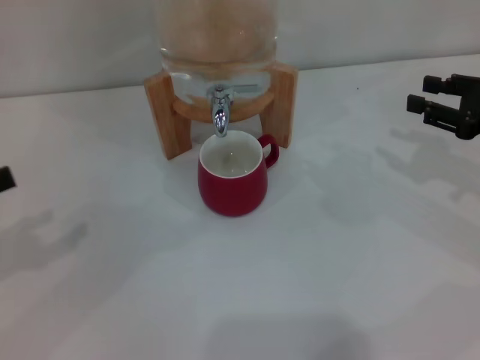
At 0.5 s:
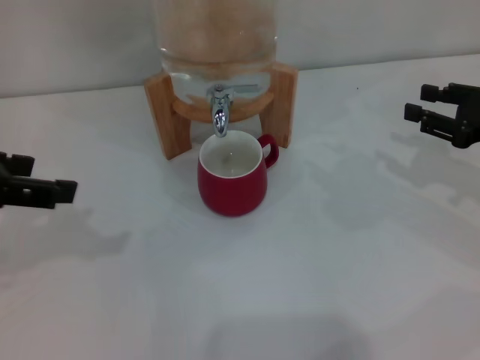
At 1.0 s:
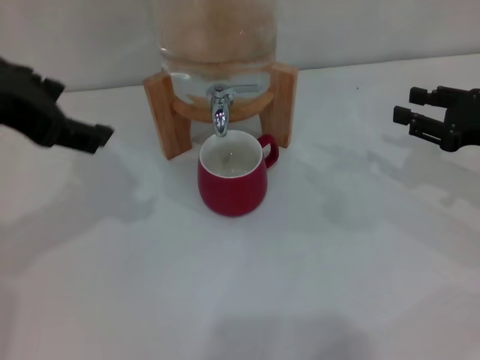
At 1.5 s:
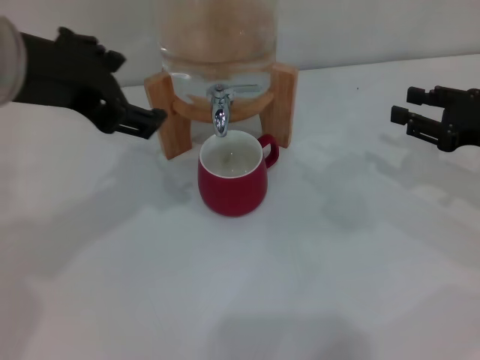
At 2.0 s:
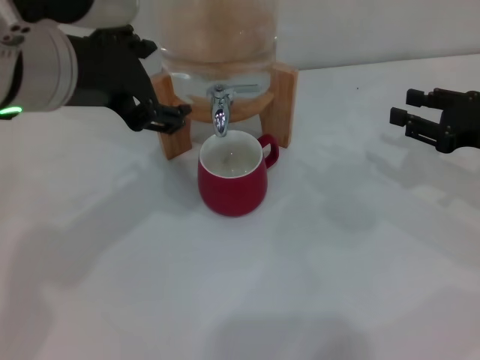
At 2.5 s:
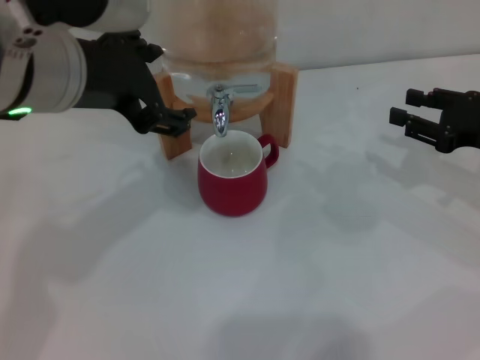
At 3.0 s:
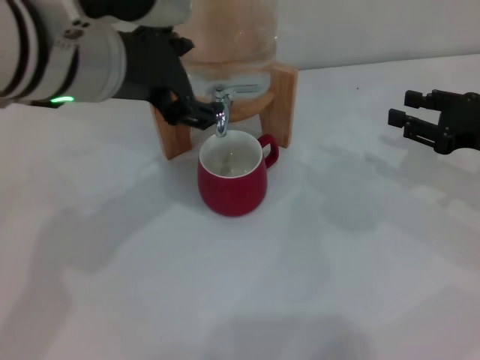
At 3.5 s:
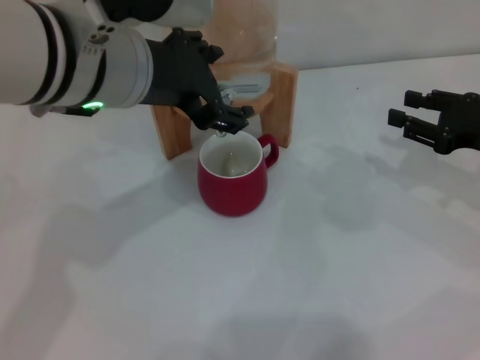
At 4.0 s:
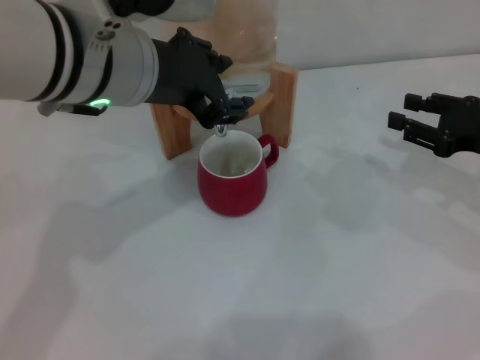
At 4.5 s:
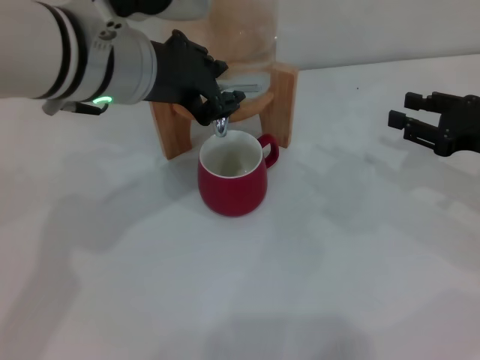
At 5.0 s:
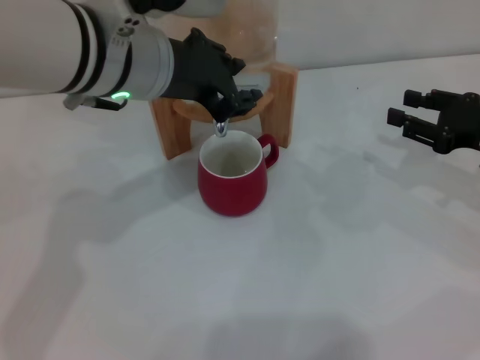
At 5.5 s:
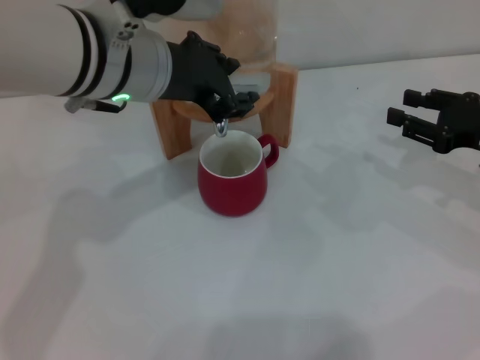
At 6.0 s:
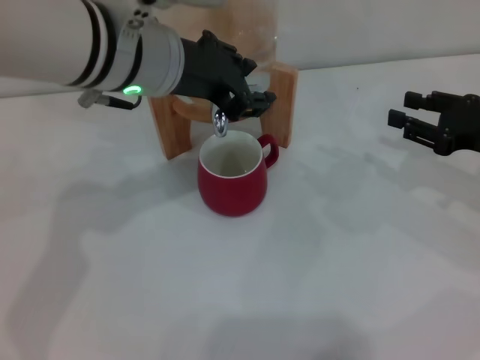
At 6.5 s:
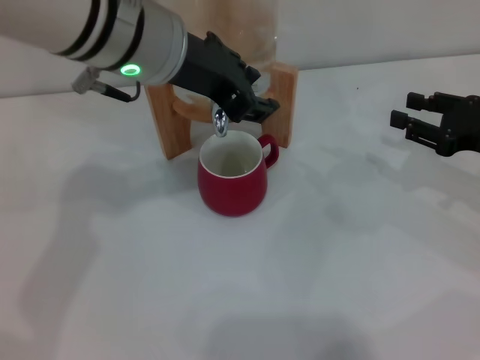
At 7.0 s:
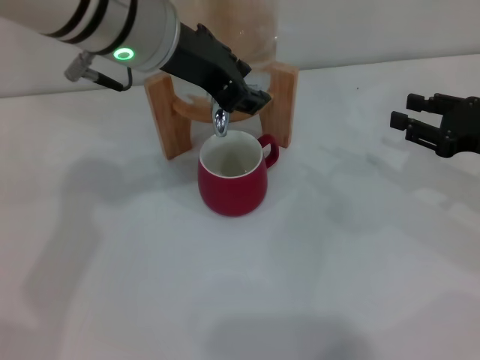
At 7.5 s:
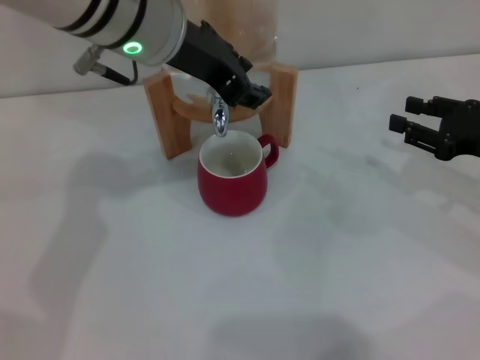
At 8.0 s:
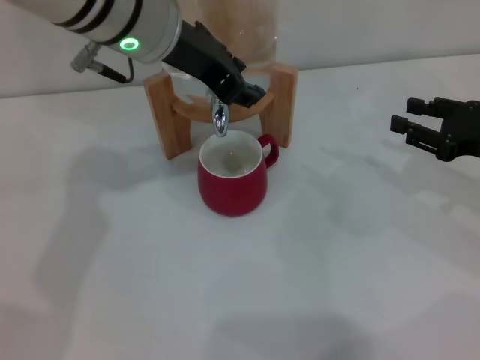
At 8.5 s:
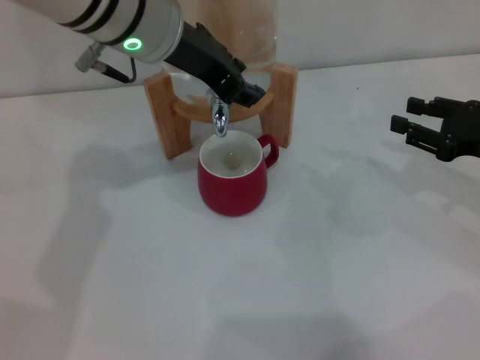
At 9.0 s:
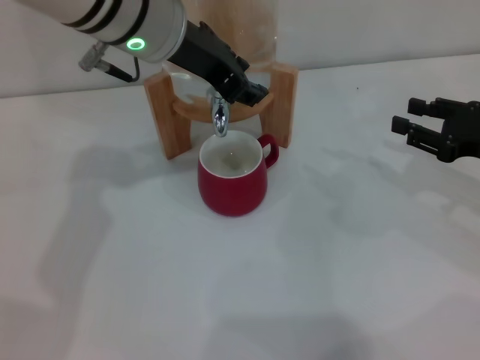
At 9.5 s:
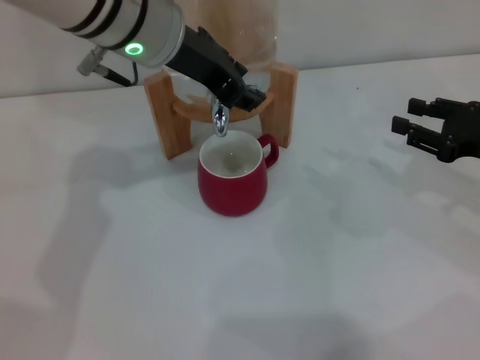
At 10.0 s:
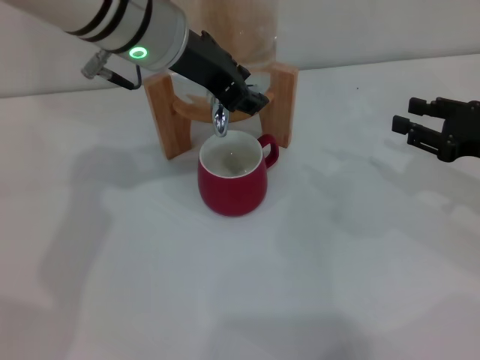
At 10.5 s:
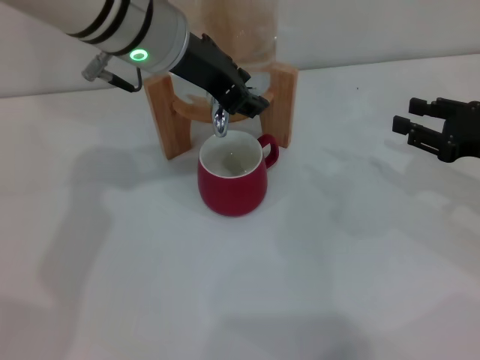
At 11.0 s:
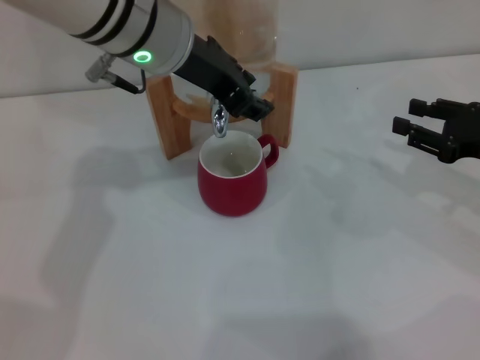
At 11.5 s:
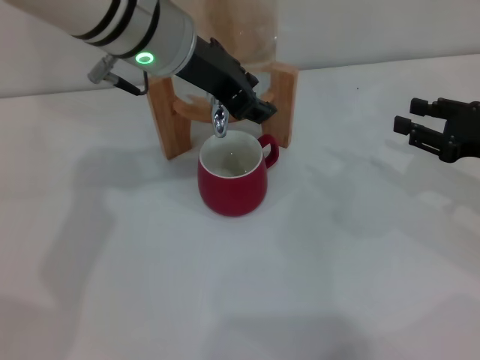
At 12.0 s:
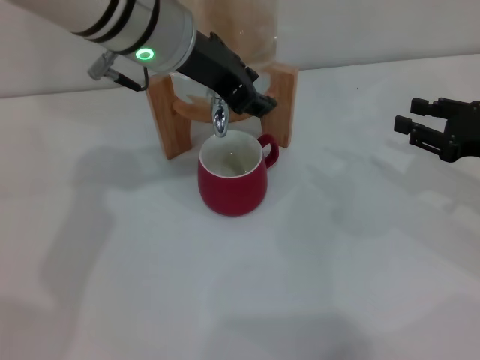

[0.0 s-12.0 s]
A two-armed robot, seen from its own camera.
Task of the whole recording: the right gripper pick up the red cup and place it horizontally under the faucet, the left gripper turn on the faucet to fill the cup, and then turn off the faucet.
0.0 to 2.0 s: The left gripper travels to the right and upward by some 25 cm.
2.0 to 4.0 s: The left gripper moves some 5 cm.
4.0 to 6.0 s: The left gripper closes up.
6.0 to 8.0 s: There are only small adjustments of the grippers.
8.0 to 10.0 s: Neither gripper changes place.
10.0 to 12.0 s: Both grippers stay put.

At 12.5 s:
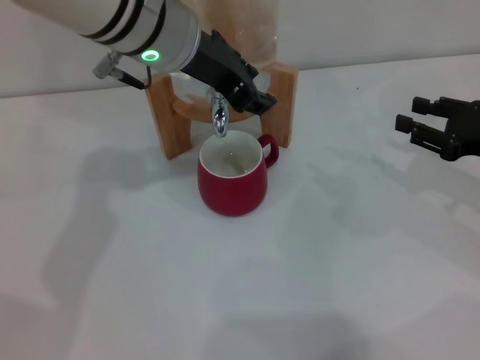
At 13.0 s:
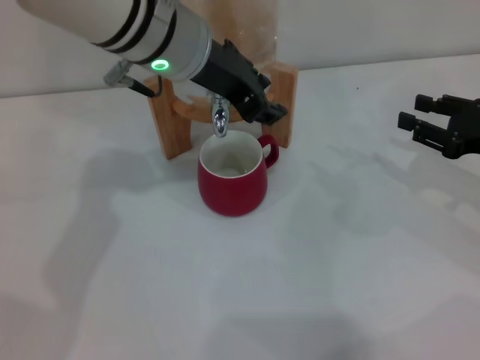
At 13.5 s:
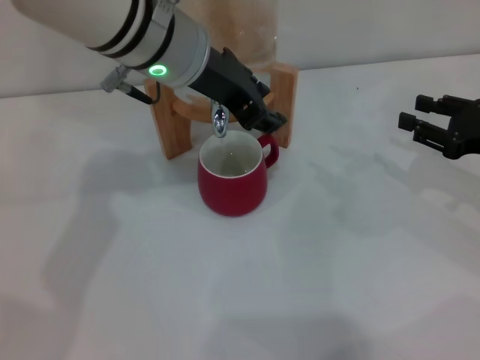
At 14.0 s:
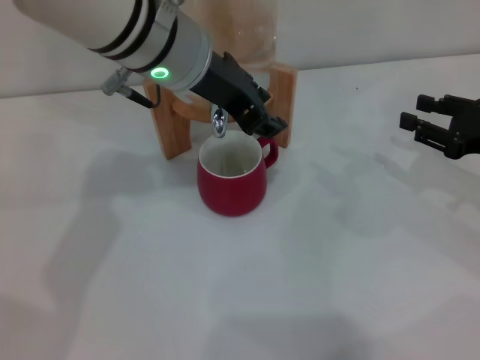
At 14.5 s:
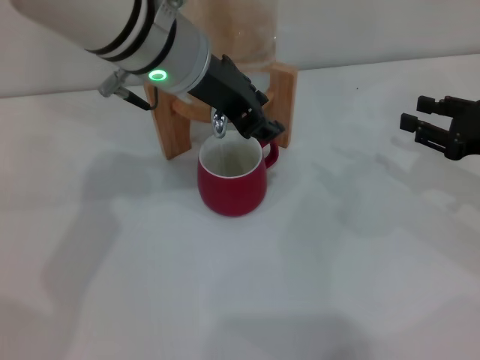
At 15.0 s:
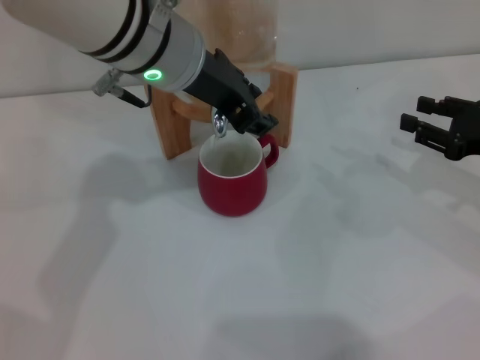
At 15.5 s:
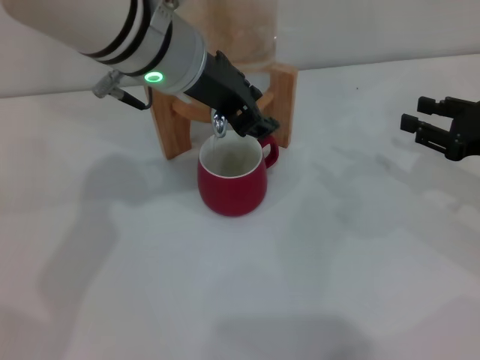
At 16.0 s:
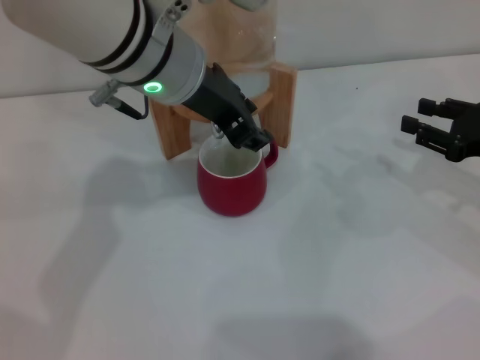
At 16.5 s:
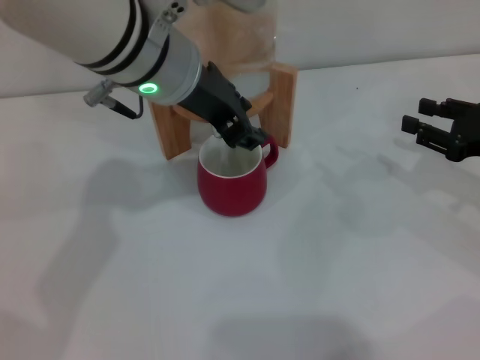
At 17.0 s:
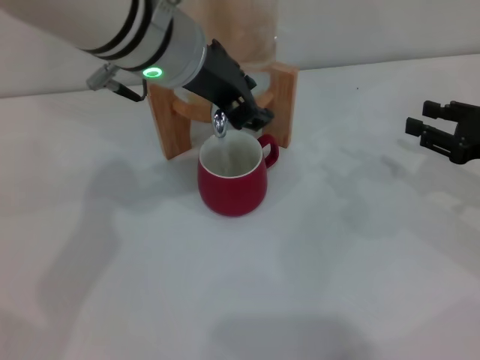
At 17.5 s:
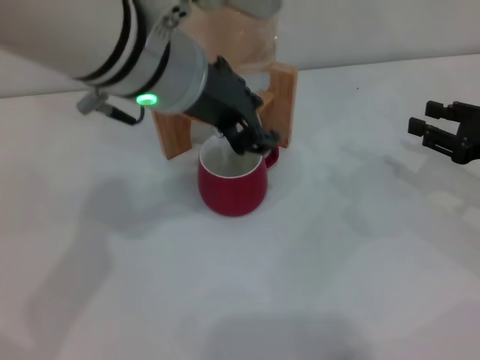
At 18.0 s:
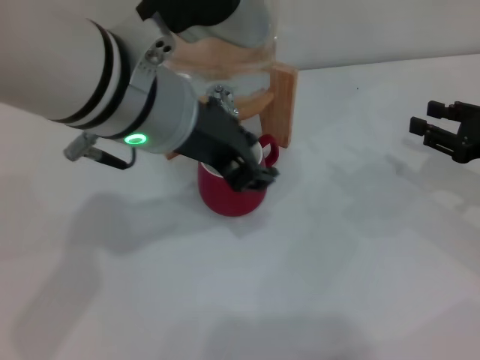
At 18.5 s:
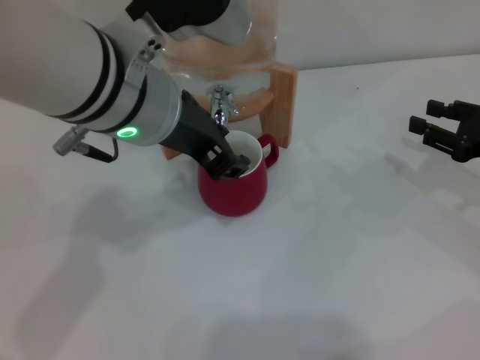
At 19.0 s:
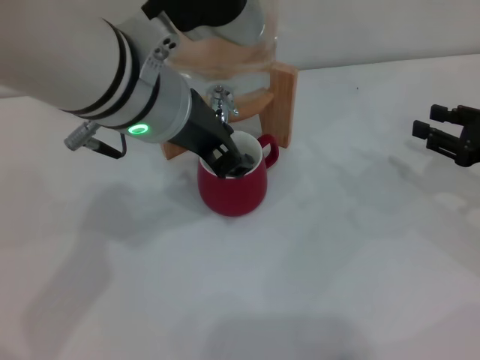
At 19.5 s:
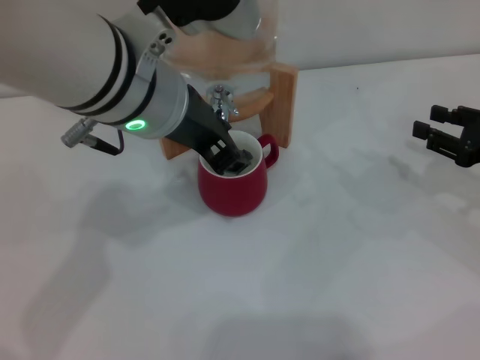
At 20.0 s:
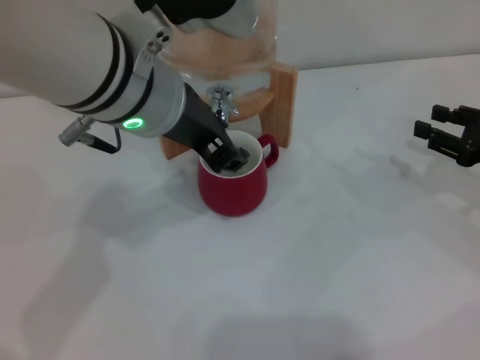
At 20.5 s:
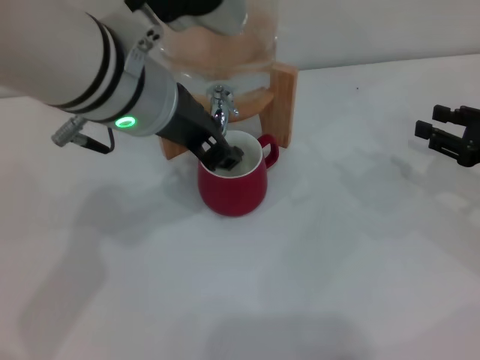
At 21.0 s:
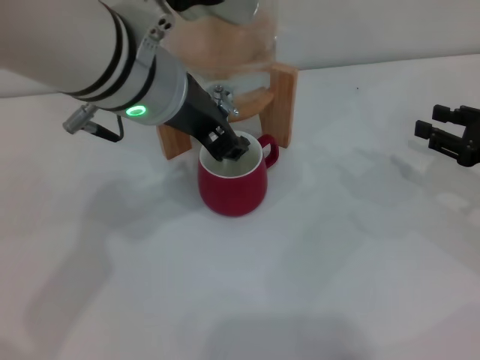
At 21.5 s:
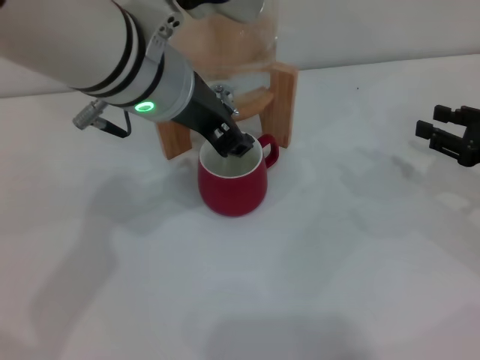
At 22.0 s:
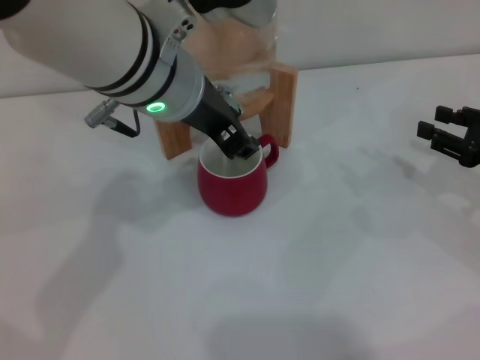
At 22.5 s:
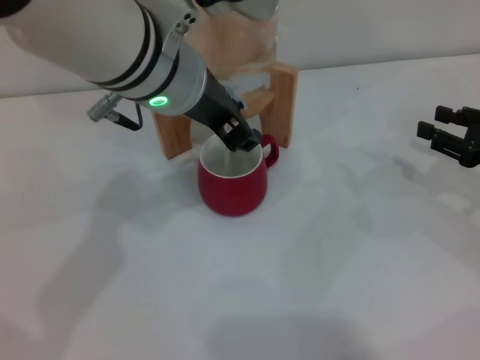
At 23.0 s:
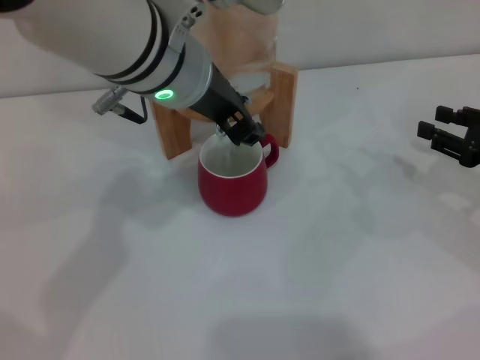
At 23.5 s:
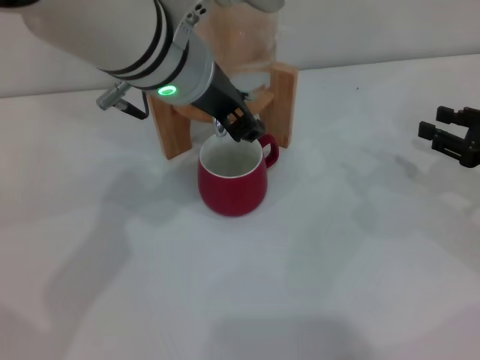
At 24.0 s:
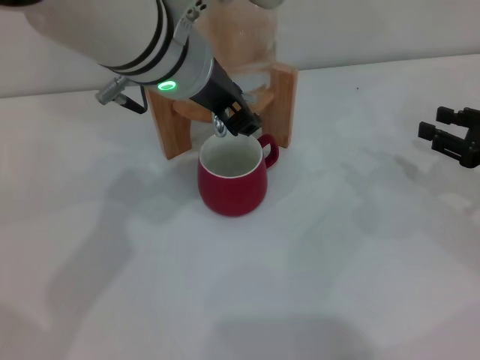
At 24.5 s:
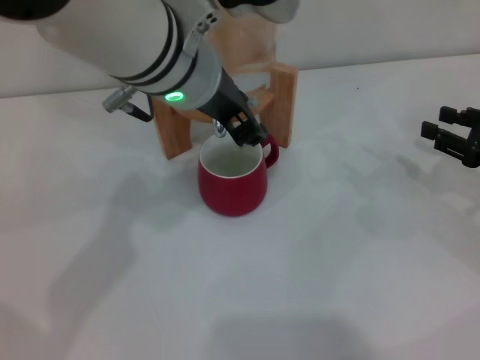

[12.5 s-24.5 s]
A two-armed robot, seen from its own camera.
Task of the whole recording: the right gripper pick up the red cup and place it horizontally under the faucet, the left gripper turn on the faucet to fill the cup, and then turn off the faucet.
Step, 12.5 to 17.0 s: Open the dispenser valve and fill the cup with water with the left gripper.
12.5 to 14.5 s: The grippers make only small movements.
14.5 to 16.5 s: Both grippers stay about where they are.
18.5 to 20.5 s: Both grippers stay about where they are.
20.5 to 22.5 s: The grippers stay close to where they were, moving slightly.
22.5 to 24.5 s: The two grippers keep their place.

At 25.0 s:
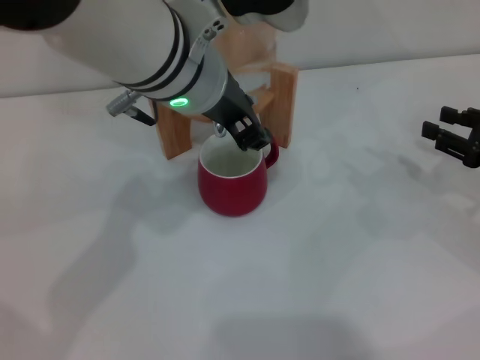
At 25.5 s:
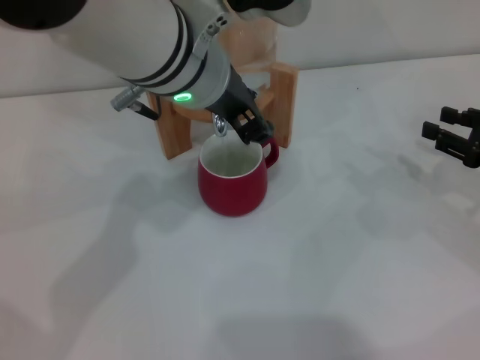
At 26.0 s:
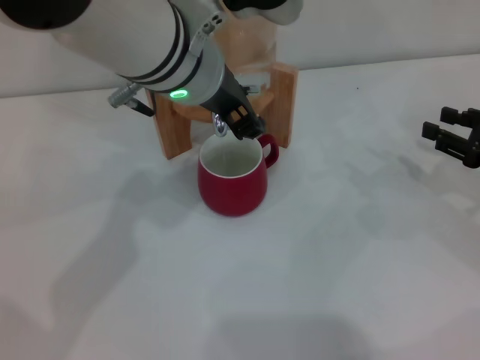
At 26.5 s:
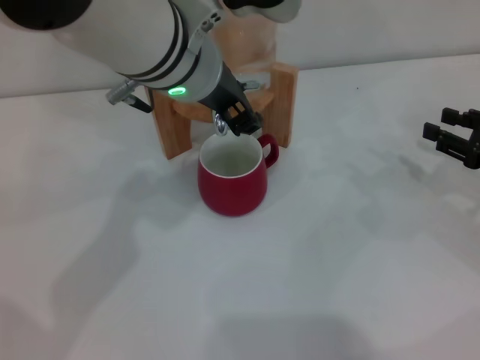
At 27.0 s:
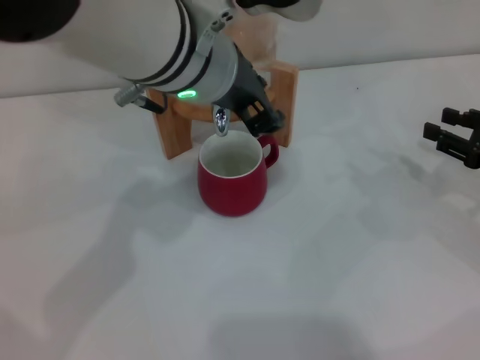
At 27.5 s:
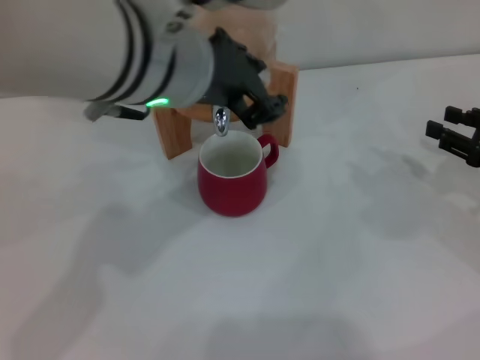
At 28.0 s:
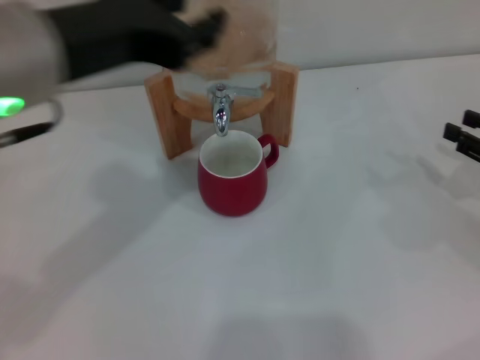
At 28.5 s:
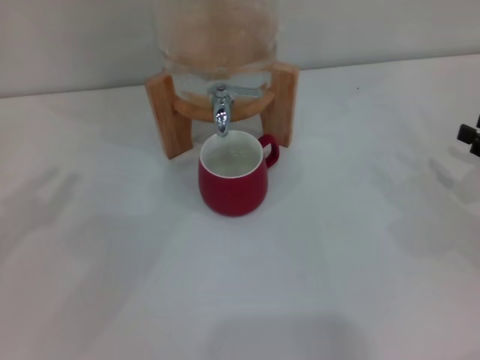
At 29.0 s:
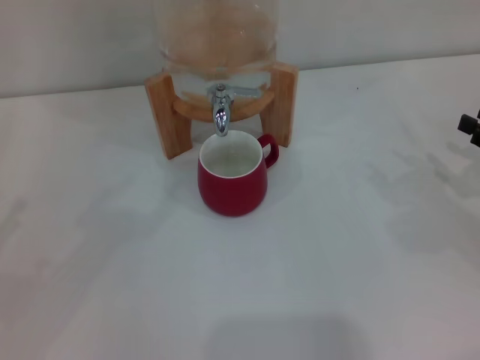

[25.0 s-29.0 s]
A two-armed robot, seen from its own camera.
Task of the whole recording: the right gripper pick up the red cup and place it horizontally under the faucet, the left gripper turn on the faucet to fill the cup, and then turn off the faucet.
25.0 to 27.0 s: There are only small adjustments of the grippers.
27.0 to 29.0 s: The left gripper goes about 35 cm to the left.
